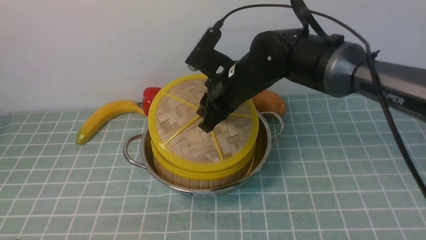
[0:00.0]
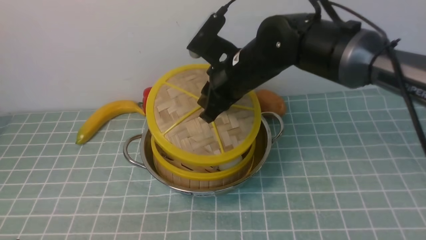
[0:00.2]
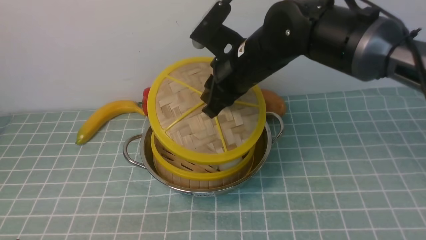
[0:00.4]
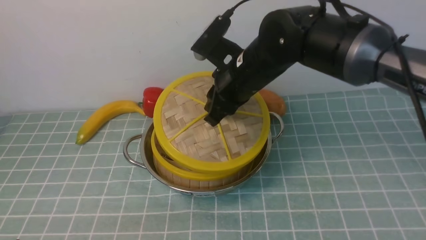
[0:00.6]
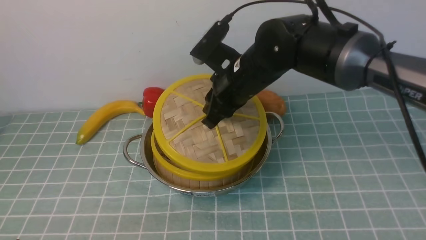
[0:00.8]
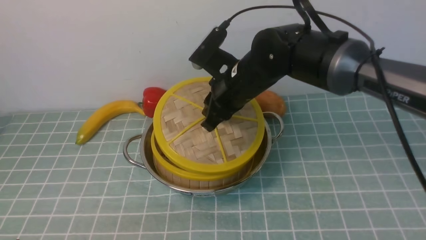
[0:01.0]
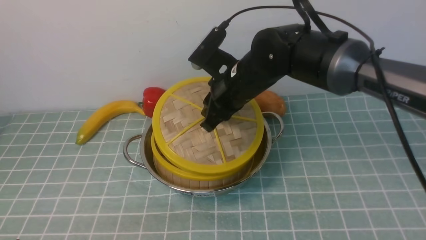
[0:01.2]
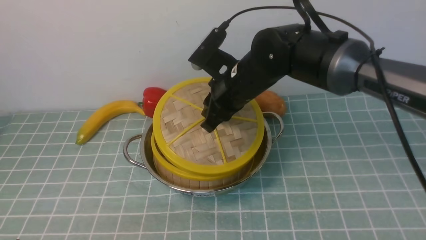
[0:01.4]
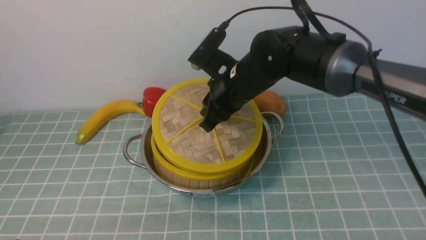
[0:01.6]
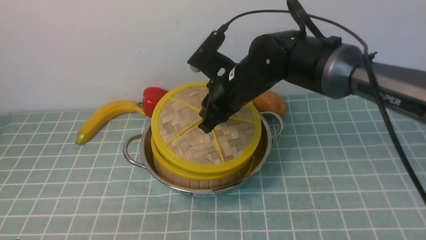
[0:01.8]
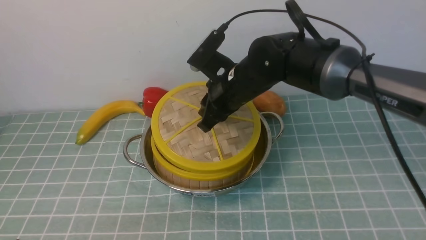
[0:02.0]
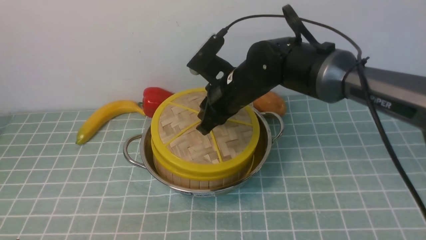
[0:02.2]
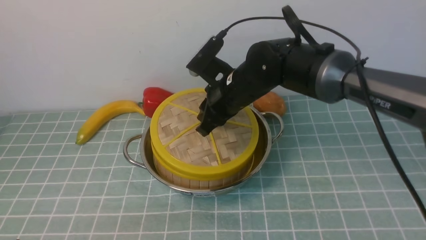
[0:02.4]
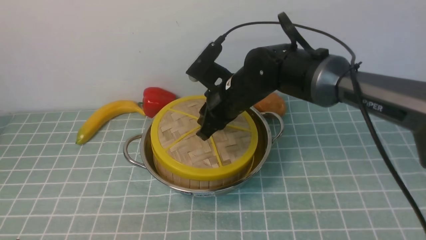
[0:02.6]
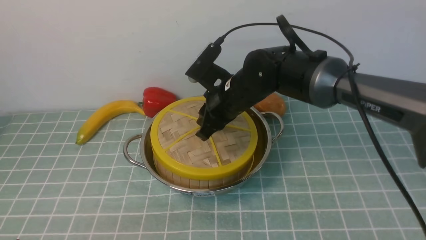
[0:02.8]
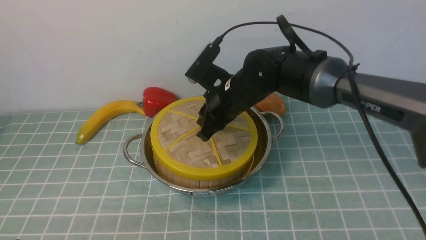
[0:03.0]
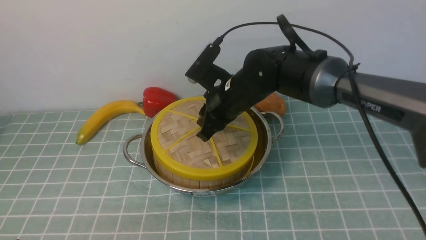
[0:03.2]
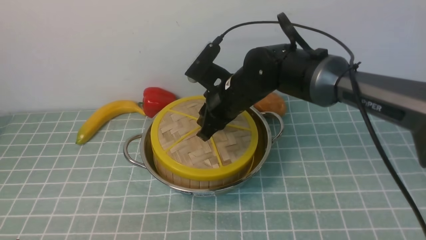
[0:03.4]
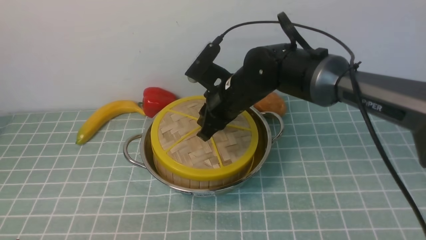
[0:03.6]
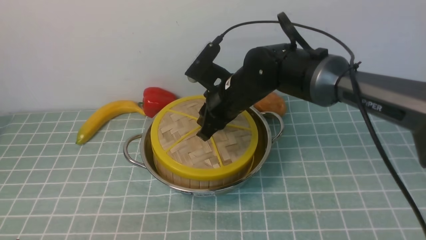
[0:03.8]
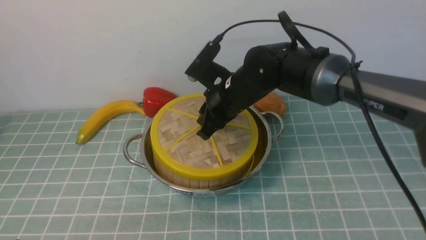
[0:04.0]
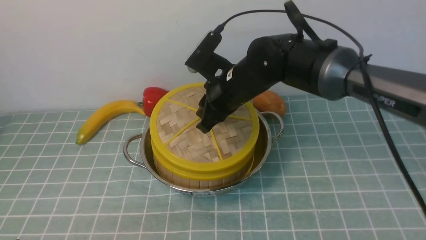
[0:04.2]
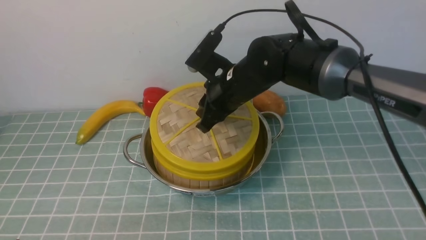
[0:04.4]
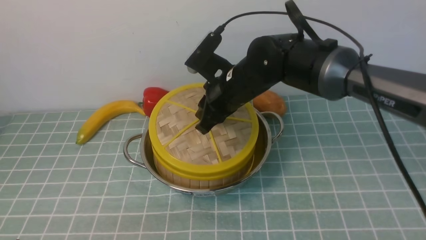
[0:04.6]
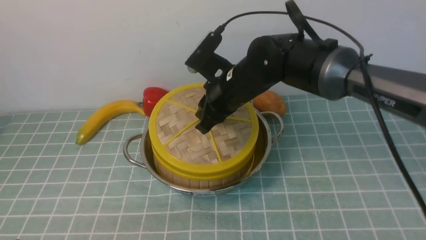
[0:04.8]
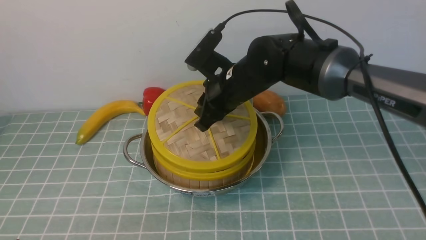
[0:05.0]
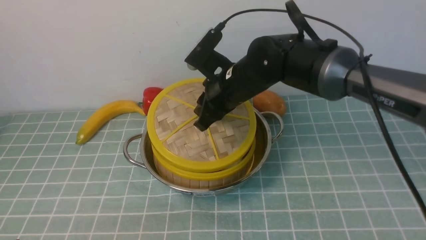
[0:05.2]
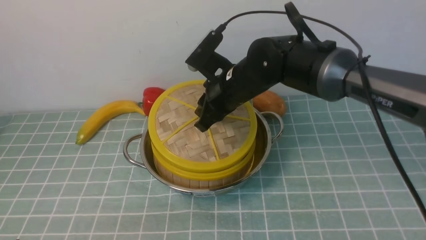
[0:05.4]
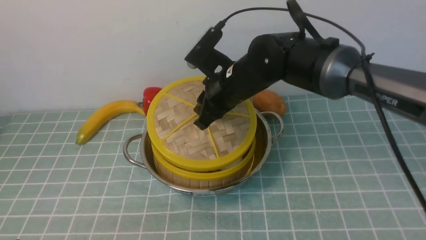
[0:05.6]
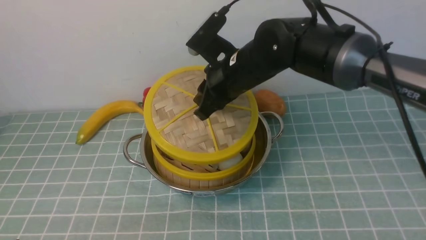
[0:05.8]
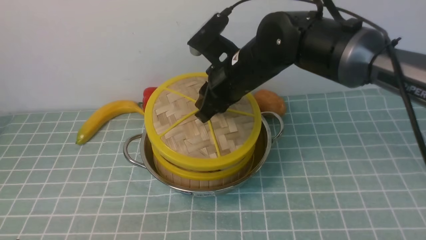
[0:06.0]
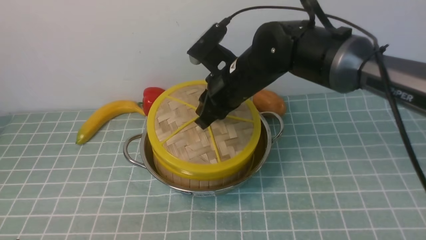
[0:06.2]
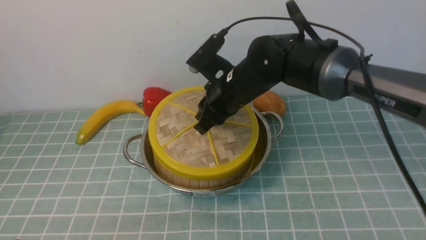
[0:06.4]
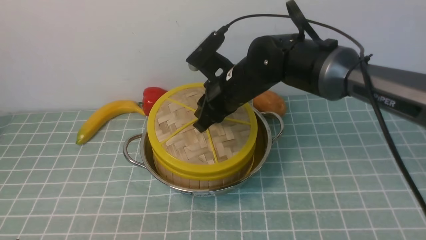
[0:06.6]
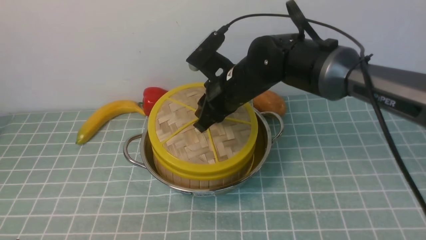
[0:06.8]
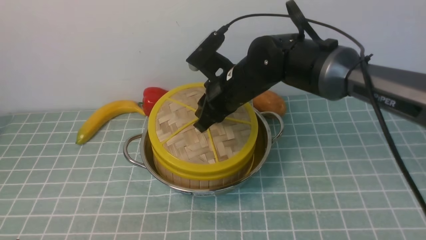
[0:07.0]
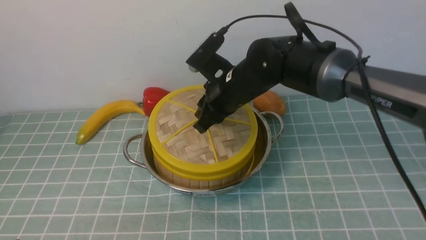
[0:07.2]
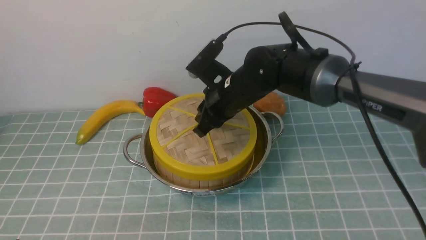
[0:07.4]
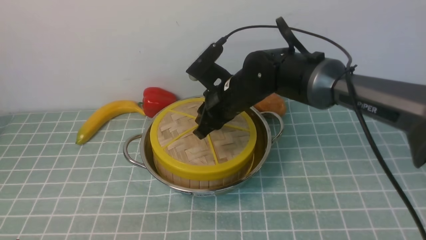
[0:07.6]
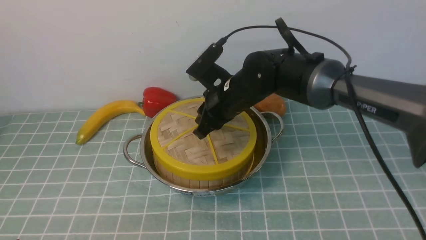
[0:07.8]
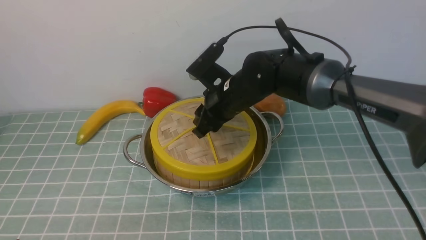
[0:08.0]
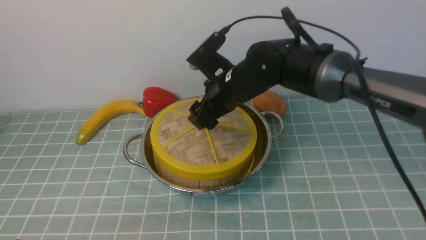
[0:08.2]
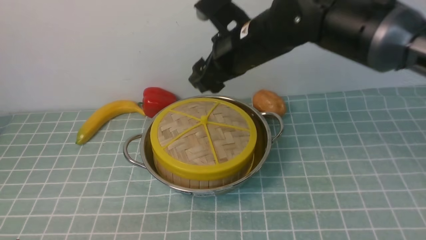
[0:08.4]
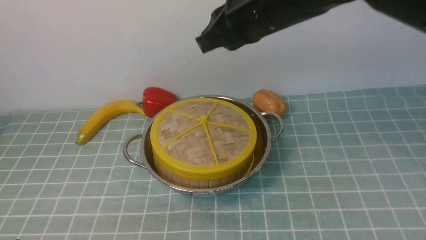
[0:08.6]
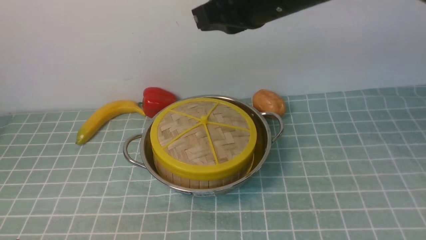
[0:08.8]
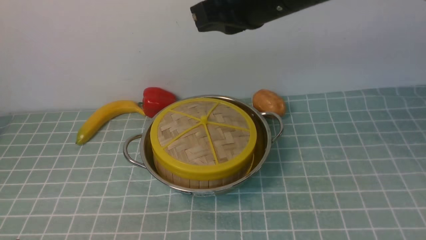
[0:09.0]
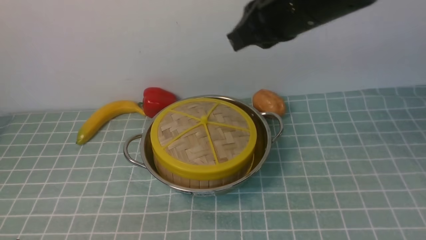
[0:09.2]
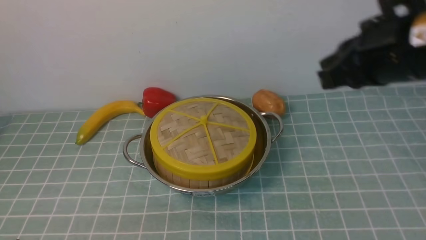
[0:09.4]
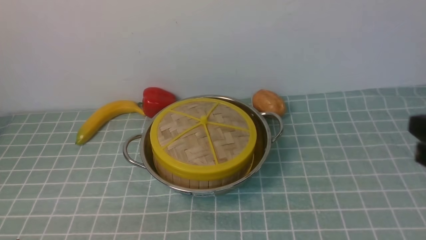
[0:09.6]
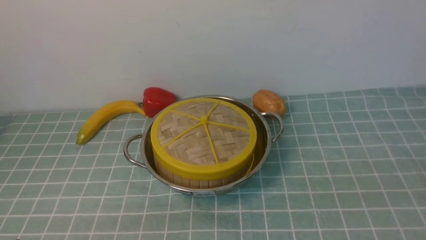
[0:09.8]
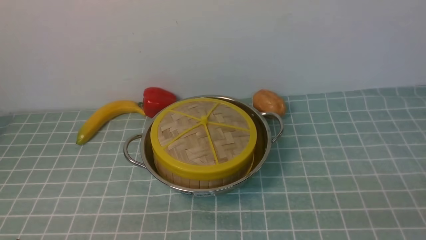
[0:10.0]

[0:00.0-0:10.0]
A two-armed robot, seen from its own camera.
Task of the whole recording: place the steamer in the pot on the blue tablecloth, and put the lid on the steamer.
Step, 0:00.0 to 0:08.6: use the right arm to place the steamer lid on the steamer.
0:00.0 to 0:07.2: There are only small adjustments of the grippers.
0:07.2 to 0:08.6: The right gripper goes approximately 15 cm upward, and opens, then closes once more.
0:08.6 to 0:10.0: The right gripper travels backward, to the right and downward by about 40 cm.

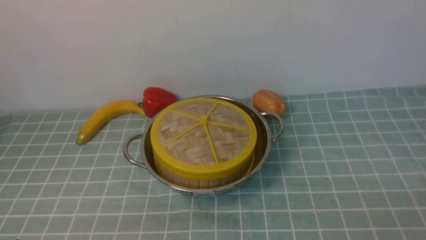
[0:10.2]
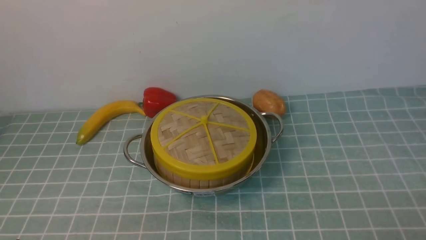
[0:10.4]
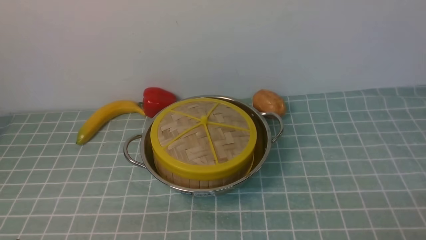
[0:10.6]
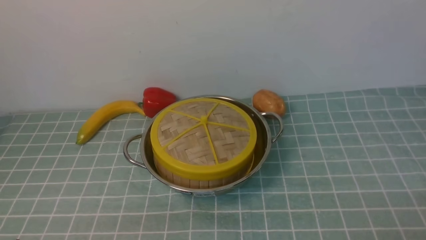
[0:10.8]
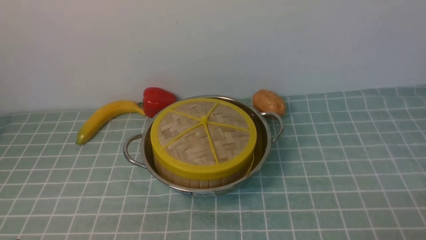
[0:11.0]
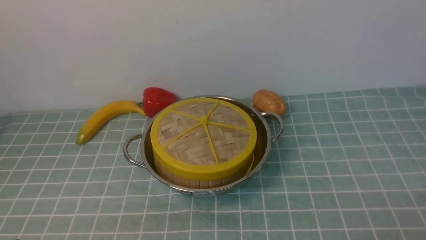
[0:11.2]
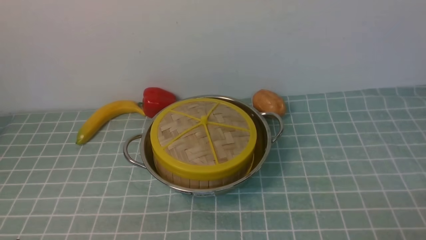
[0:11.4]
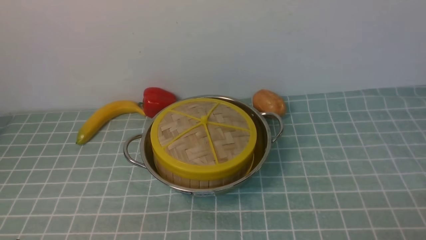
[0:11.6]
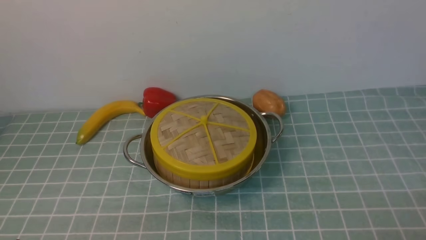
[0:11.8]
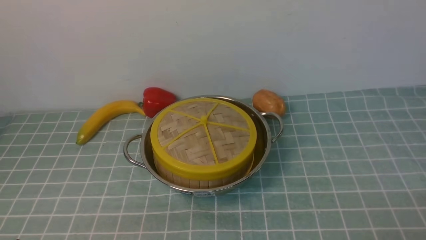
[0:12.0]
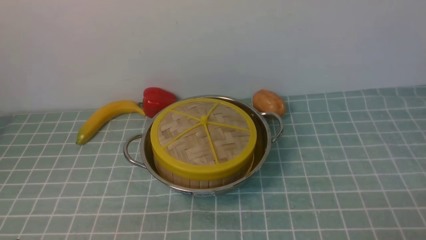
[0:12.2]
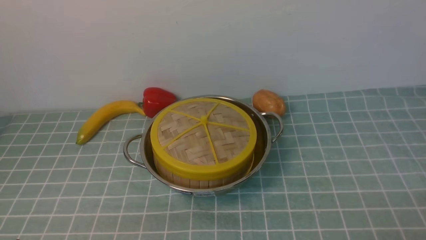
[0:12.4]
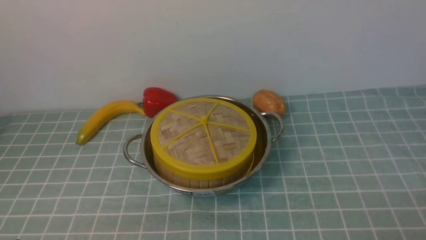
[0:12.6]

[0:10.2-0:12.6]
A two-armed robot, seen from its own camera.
Task of the whole recording: place the steamer in the pot on the blue tablecloth, and put the lid on the steamer.
0:11.4 to 0:12.6: Neither gripper changes place.
